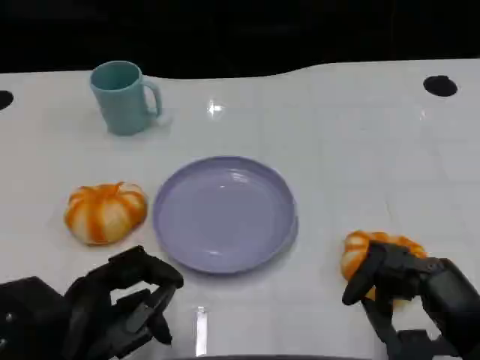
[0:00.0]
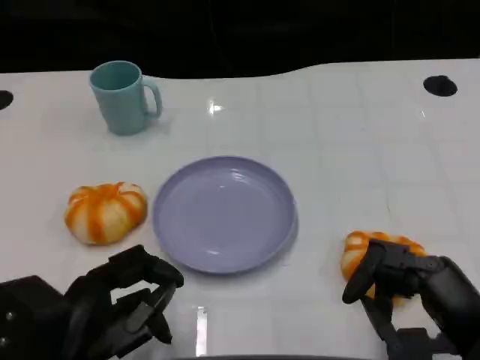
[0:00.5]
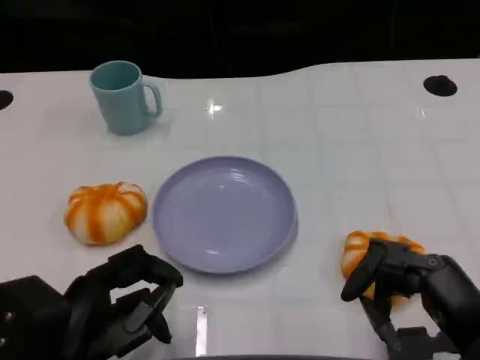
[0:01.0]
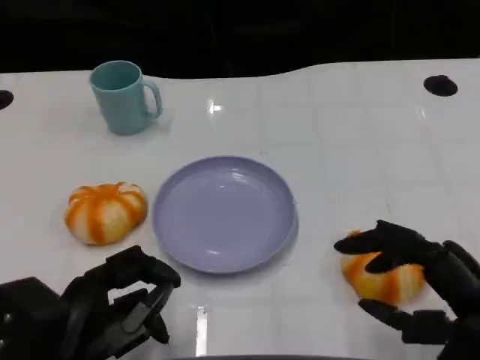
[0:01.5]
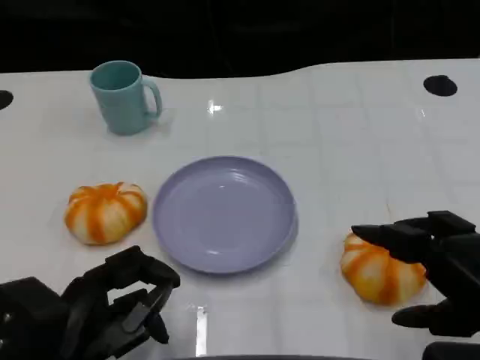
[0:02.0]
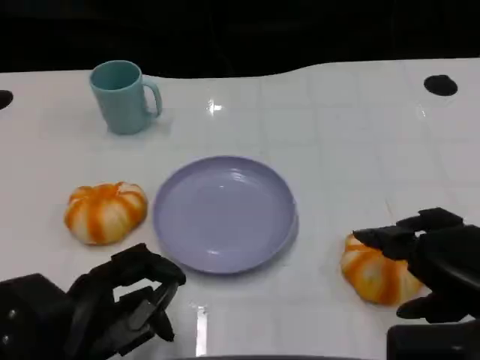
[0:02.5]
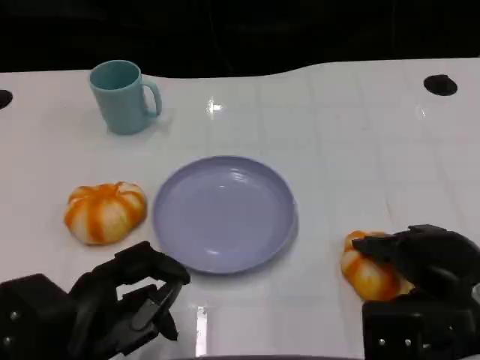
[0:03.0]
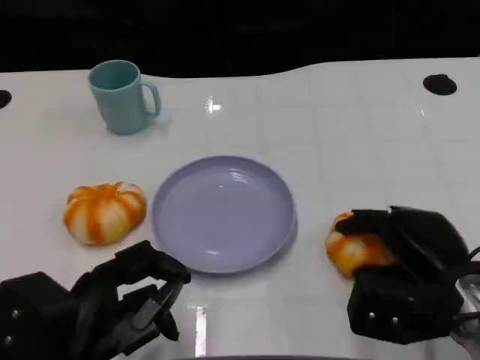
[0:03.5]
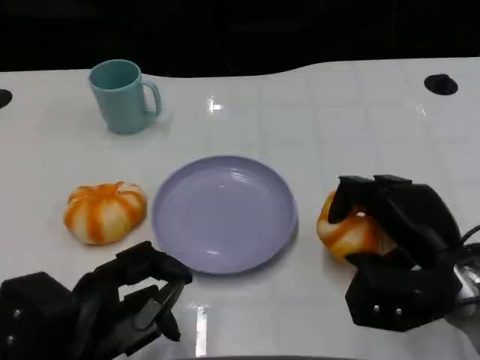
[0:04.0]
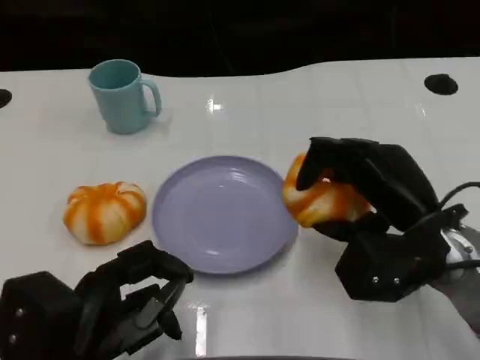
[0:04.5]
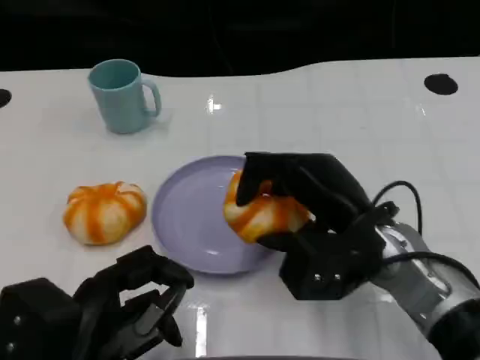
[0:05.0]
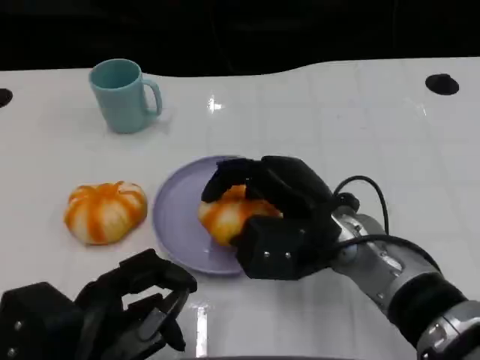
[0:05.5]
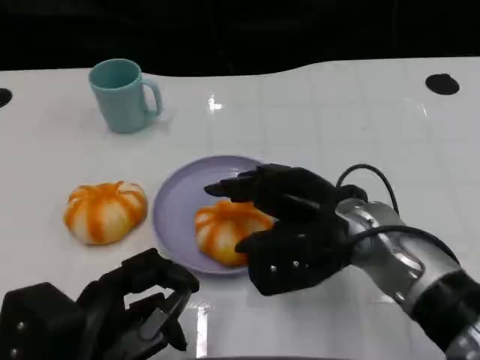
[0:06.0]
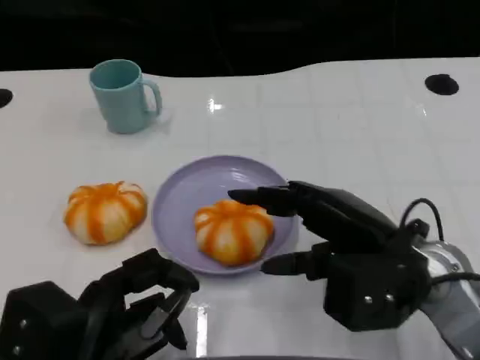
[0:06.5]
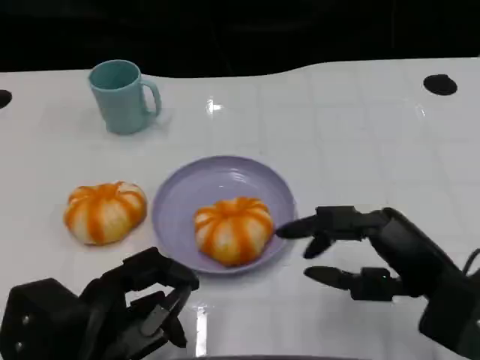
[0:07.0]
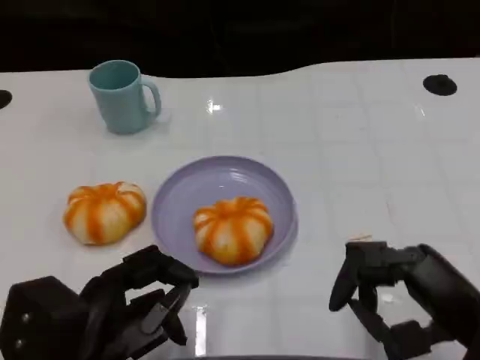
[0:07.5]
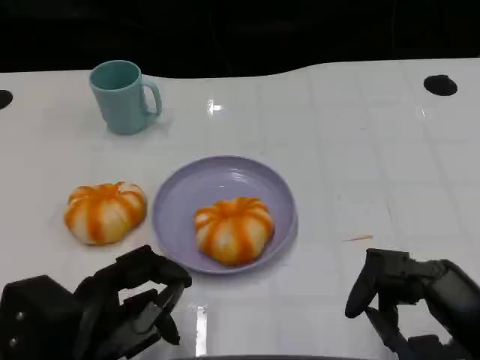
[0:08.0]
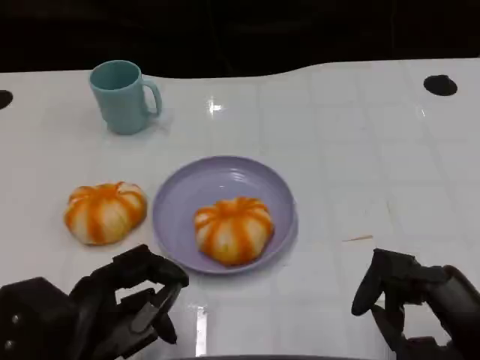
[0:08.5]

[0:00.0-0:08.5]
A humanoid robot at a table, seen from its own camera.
Task of the whole recording: Grasp the bread from the table and place it into the plate.
0:00.0 to 0:02.0: The right hand moves upward, approximately 5 cm.
0:02.0 to 0:04.0: The right hand travels forward and downward by roughly 10 cm.
0:04.0 to 0:06.5: The right hand reaches roughly 10 cm to the left, then returns.
0:06.5 to 0:08.5: The right hand goes about 10 cm backward and to the right.
